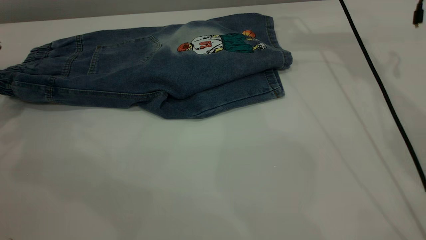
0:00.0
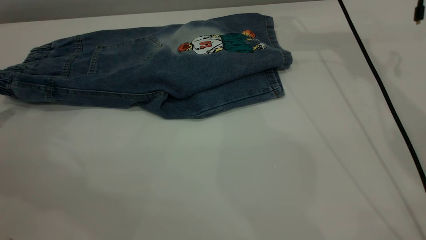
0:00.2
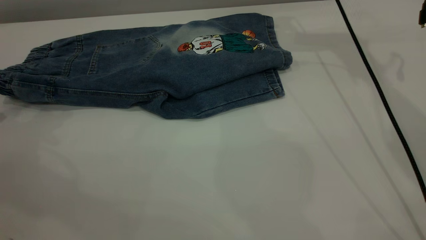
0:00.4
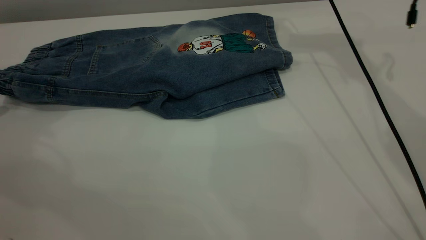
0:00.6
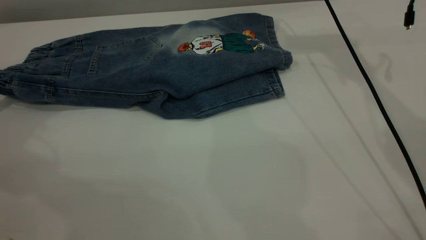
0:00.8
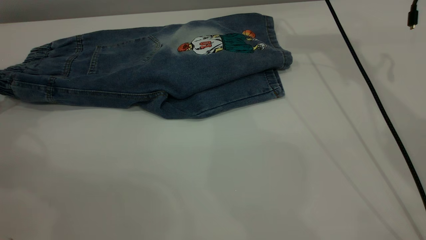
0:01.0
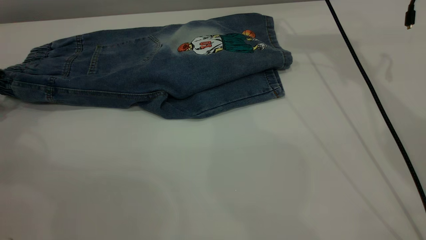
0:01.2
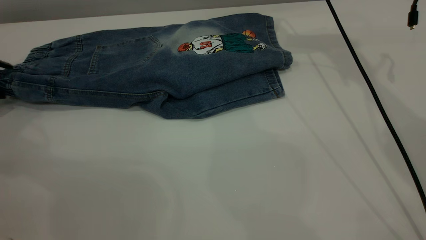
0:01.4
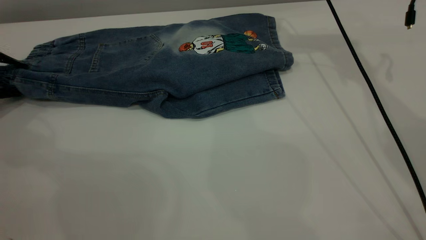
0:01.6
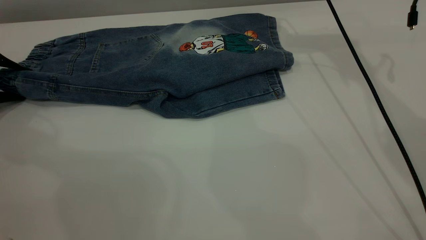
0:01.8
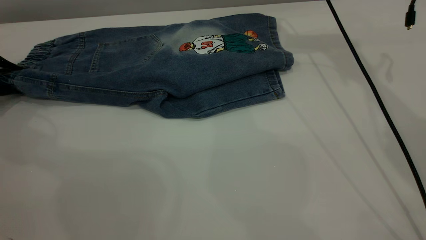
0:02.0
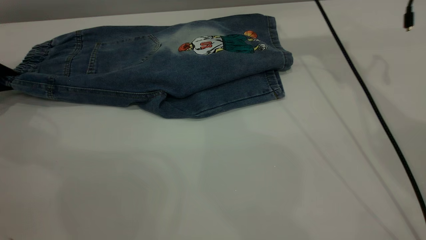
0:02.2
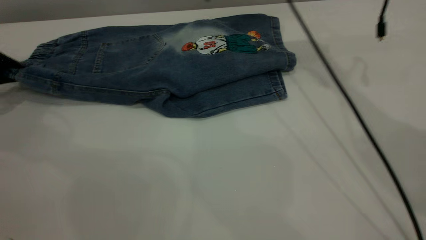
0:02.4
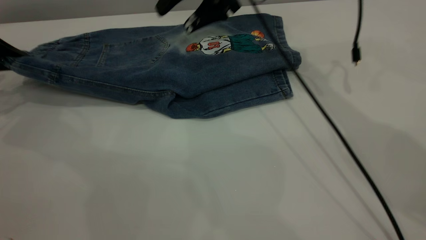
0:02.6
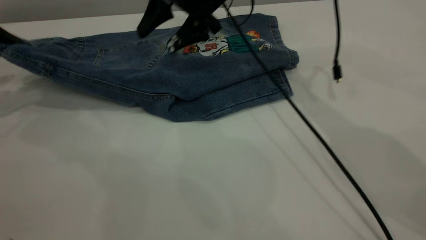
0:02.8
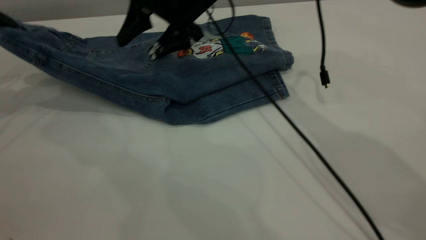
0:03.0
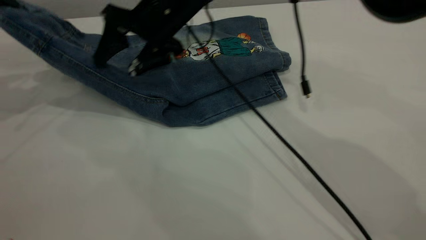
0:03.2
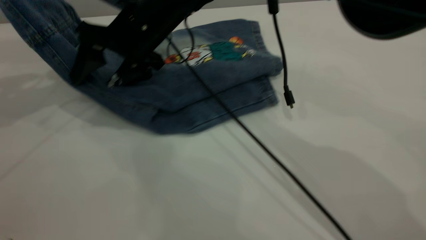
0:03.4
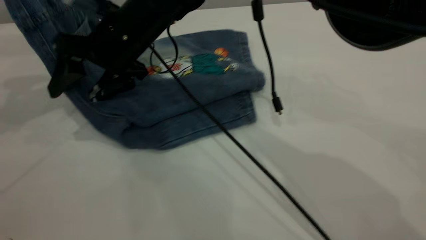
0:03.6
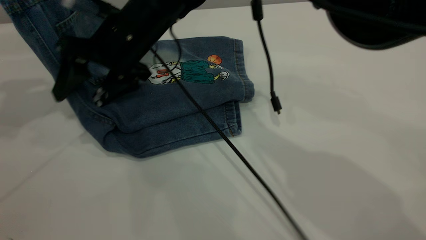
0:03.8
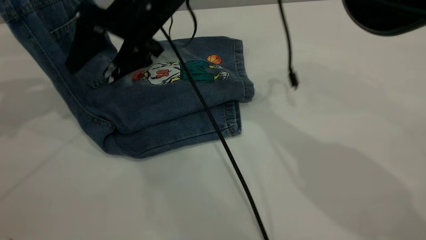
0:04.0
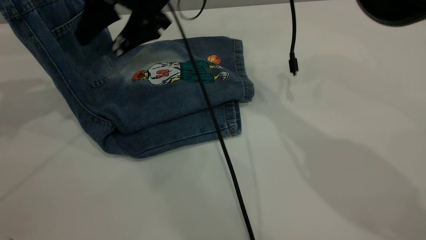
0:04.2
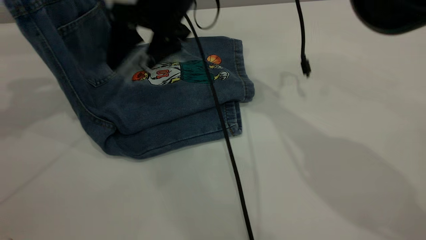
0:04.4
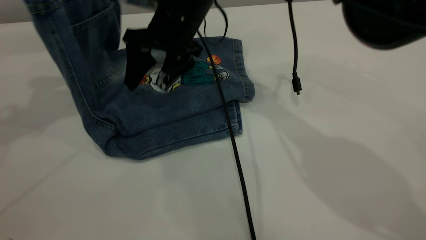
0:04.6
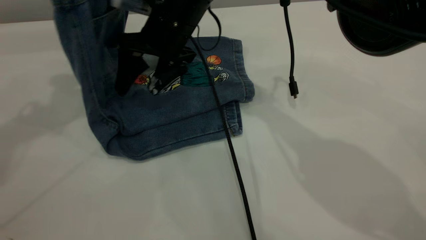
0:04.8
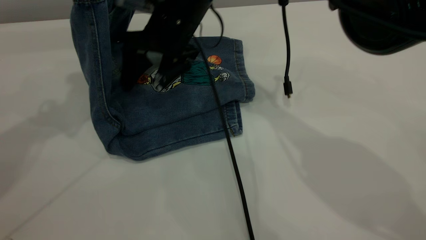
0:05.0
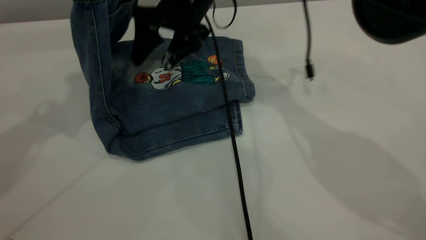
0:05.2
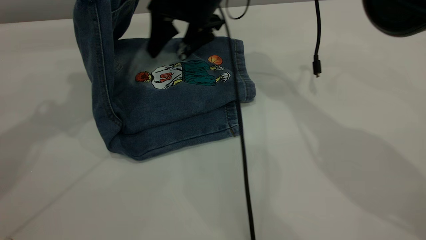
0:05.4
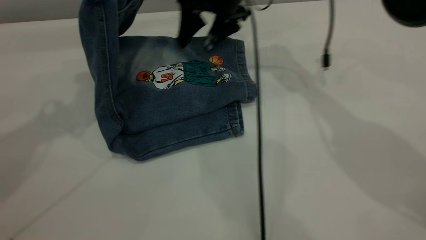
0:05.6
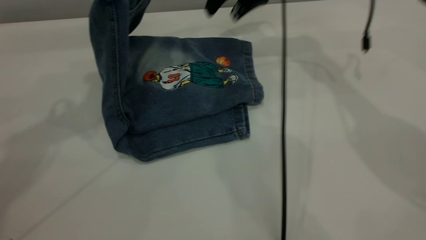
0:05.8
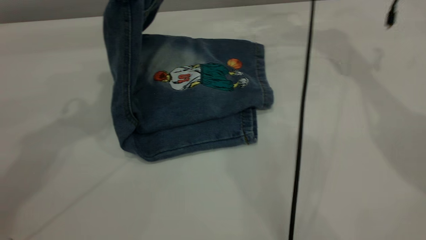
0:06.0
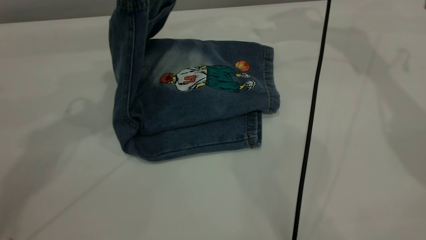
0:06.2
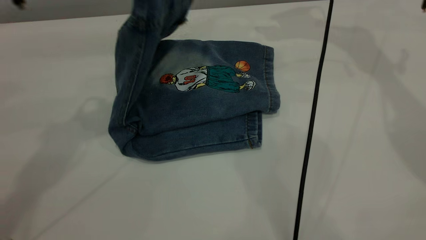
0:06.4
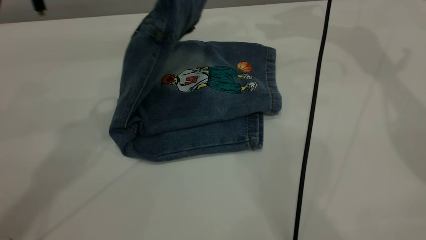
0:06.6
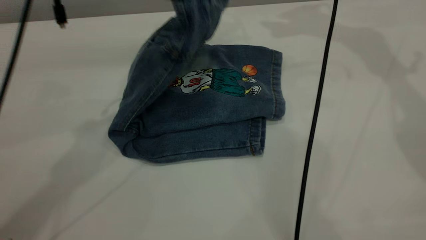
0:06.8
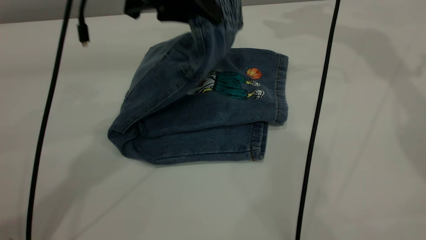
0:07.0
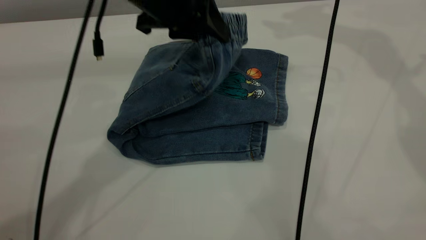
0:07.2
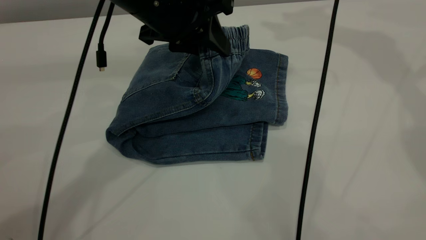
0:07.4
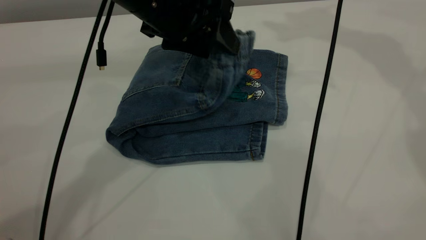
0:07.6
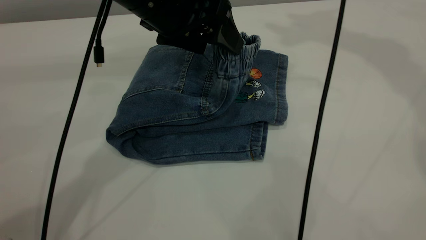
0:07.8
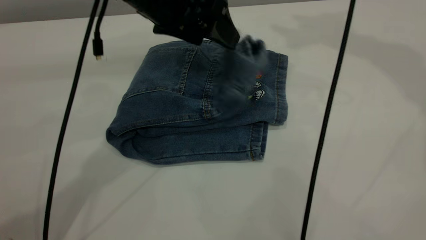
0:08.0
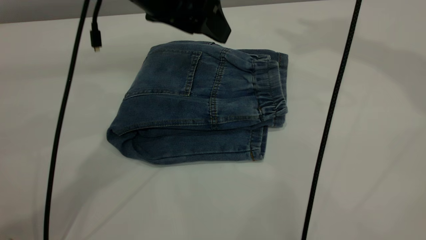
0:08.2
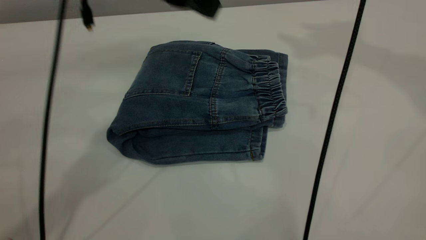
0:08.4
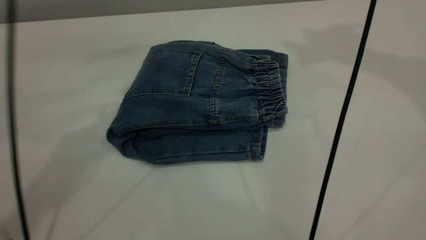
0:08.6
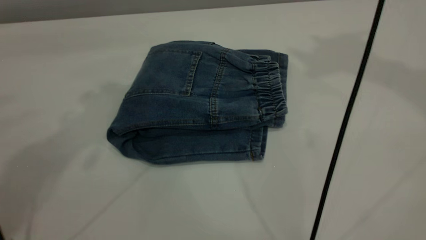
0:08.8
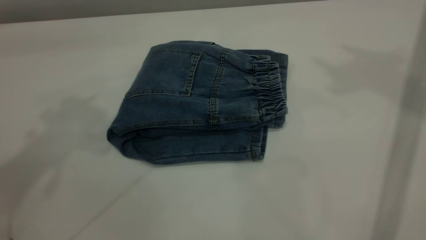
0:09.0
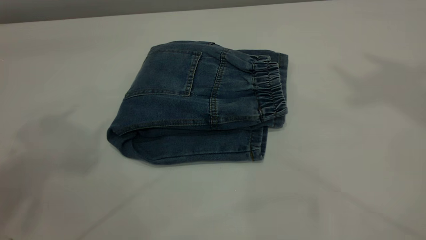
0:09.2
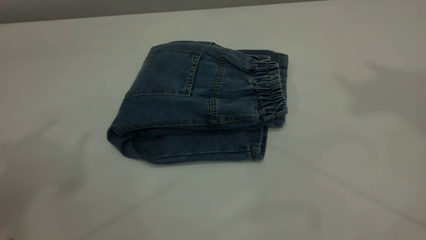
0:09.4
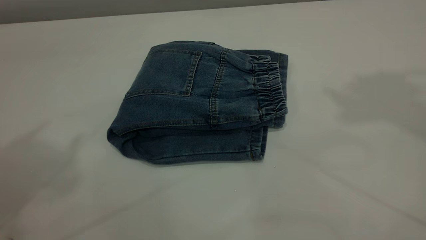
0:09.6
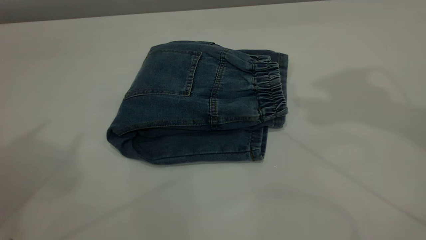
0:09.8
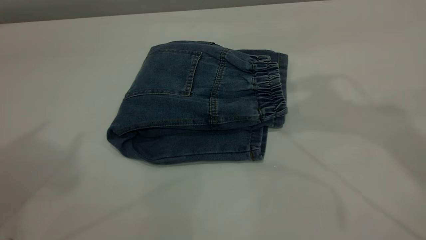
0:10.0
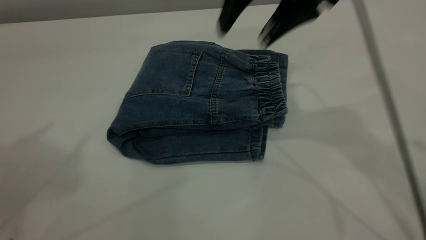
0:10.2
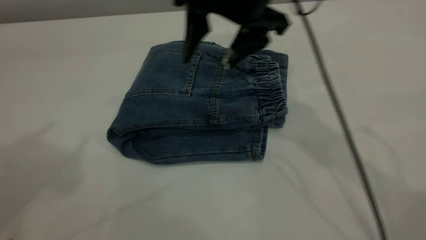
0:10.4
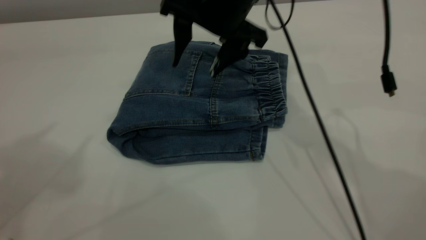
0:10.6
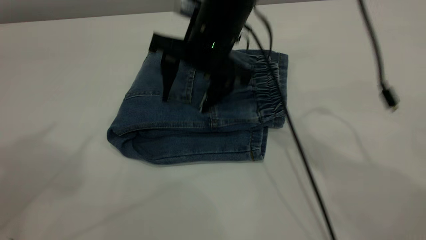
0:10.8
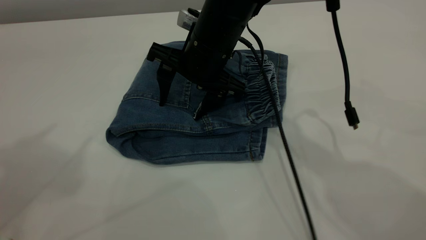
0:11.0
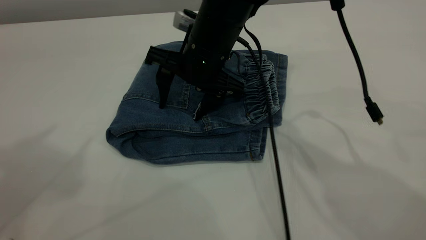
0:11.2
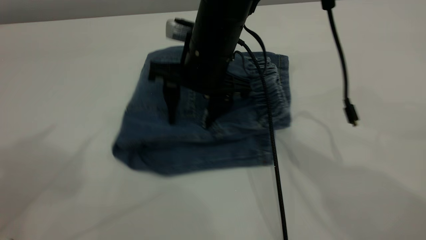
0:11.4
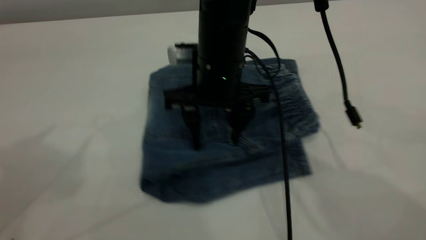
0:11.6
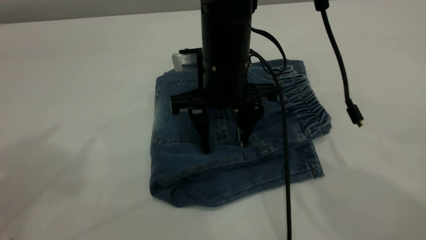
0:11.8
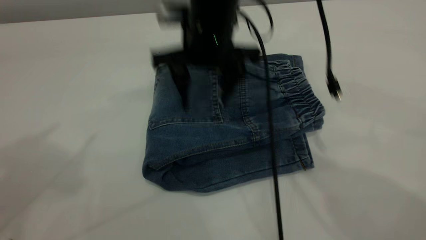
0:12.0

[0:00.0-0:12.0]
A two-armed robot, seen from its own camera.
Step, 0:00.2 to 0:08.4: Fold the pants from left to right.
0:00.0 to 0:01.6: The left gripper moves downward and forward, some 10 cm.
0:01.6 to 0:03.0: The right gripper shifts about 20 cm to the left, downward and backward. Meanwhile the left gripper moves upward, approximately 10 cm, and closes its fingers.
0:03.0 to 0:04.4: The left gripper is displaced upward and to the right by approximately 10 cm. The right gripper goes to the left and returns, some 10 cm each way.
0:04.4 to 0:06.0: The right gripper shifts roughly 25 cm to the right and forward, while the left gripper travels to the right by some 15 cm.
0:06.0 to 0:07.6: The right gripper heads upward, covering some 20 cm; the left gripper is displaced downward and to the right by about 15 cm, and opens.
0:07.6 to 0:09.0: The right gripper moves backward and upward, approximately 25 cm; the left gripper is displaced upward and to the left by some 25 cm.
0:09.0 to 0:10.4: The left gripper moves backward and upward, about 10 cm. The right gripper moves downward and to the left, some 40 cm.
0:10.4 to 0:12.0: The right gripper moves to the left, about 5 cm, and travels downward and back again, some 10 cm each way.

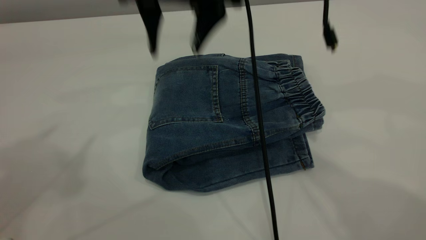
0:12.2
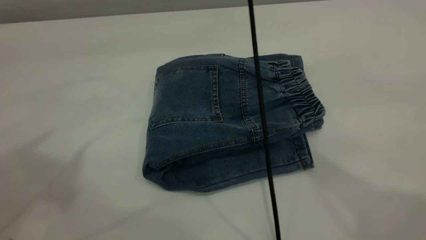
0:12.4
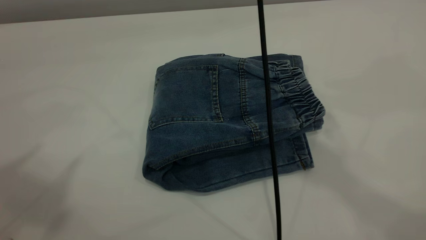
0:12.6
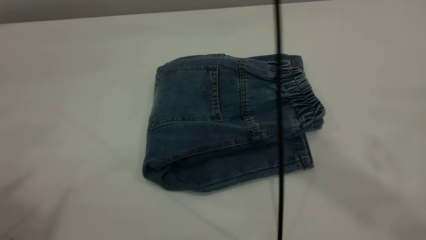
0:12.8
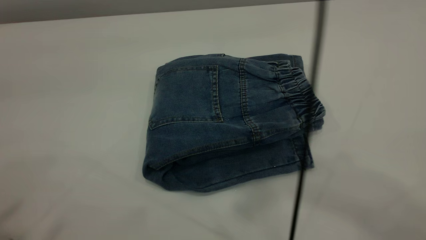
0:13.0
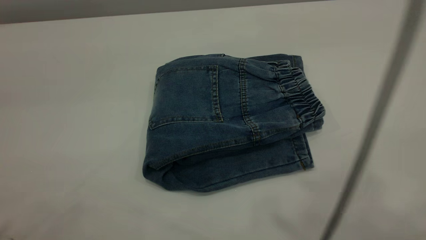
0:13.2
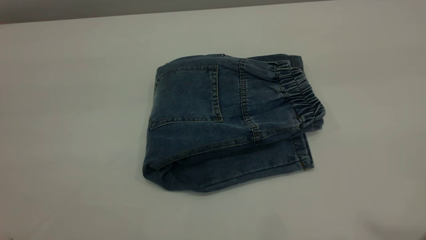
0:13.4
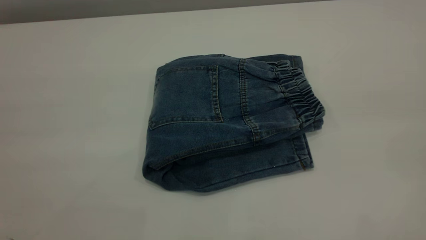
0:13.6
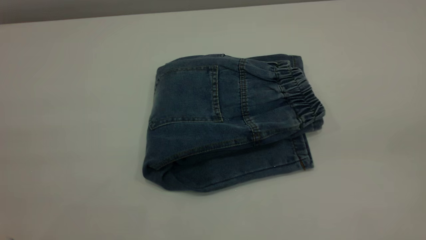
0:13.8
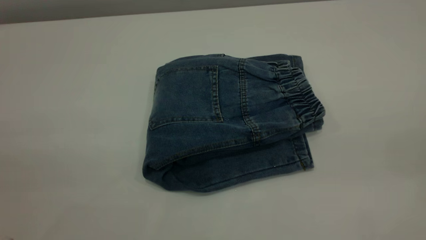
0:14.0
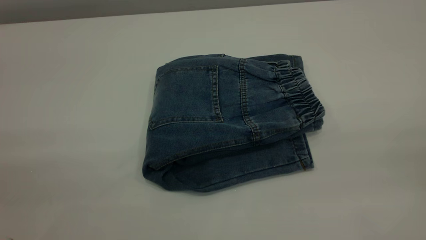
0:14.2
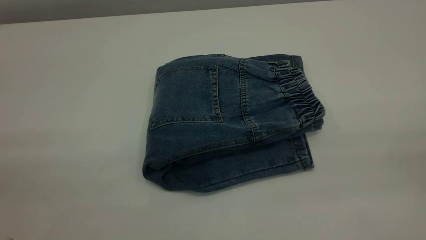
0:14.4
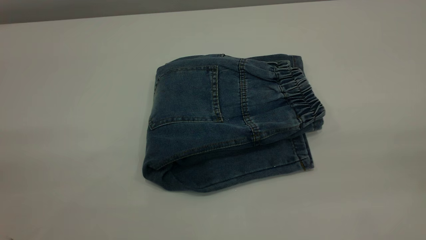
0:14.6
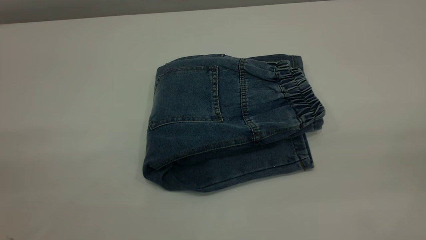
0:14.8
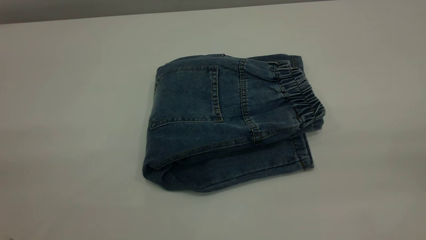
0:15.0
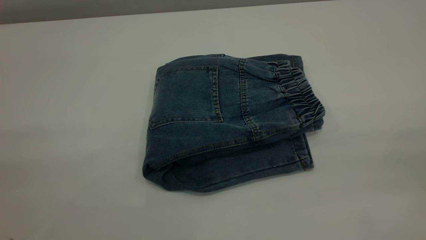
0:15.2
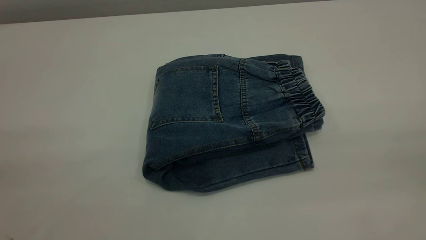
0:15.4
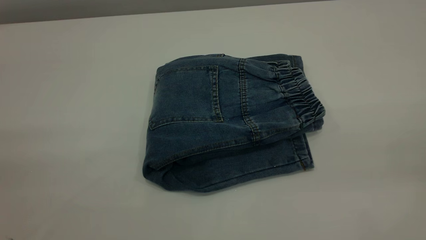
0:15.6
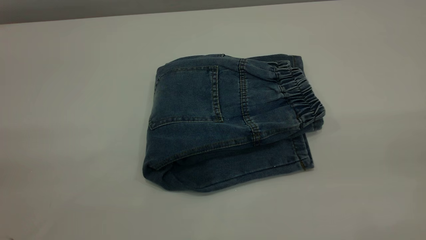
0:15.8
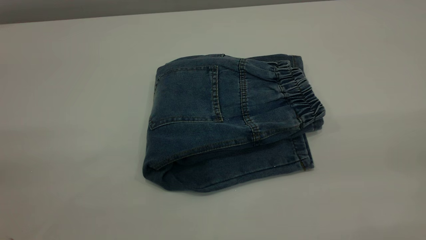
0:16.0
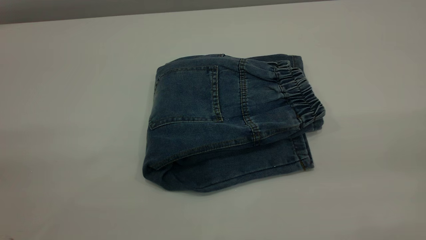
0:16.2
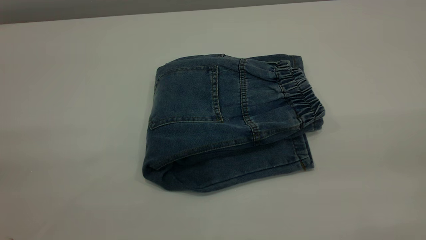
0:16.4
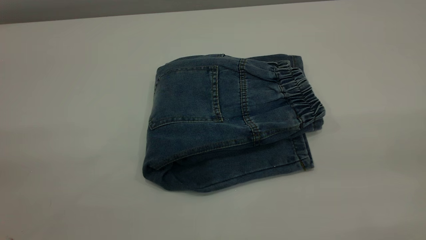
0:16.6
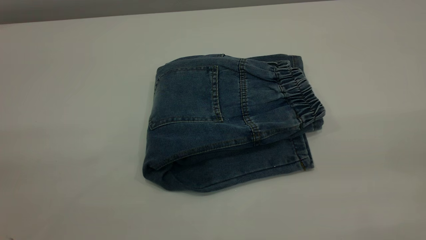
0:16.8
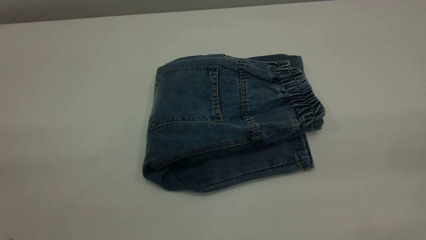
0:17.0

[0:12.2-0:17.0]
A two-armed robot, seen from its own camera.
0:12.2 to 0:13.8: The right gripper shifts about 50 cm backward, to the right and upward, while the left gripper moves backward, approximately 20 cm.
